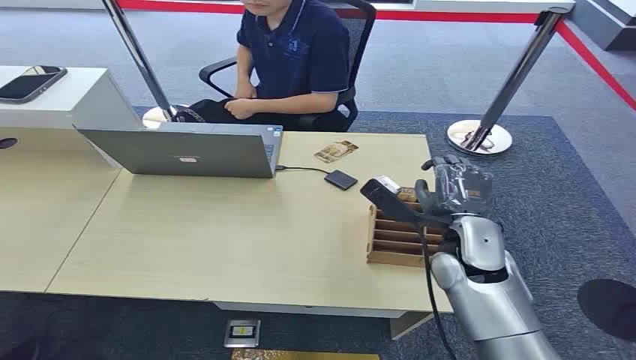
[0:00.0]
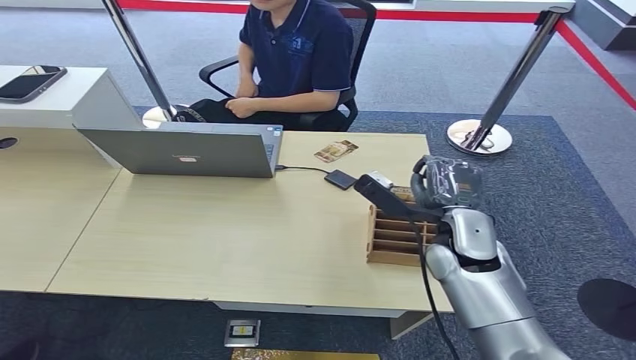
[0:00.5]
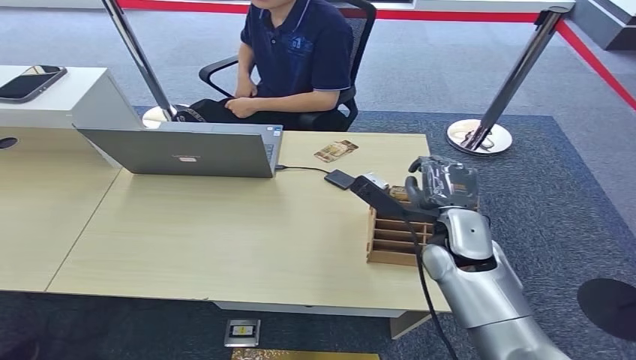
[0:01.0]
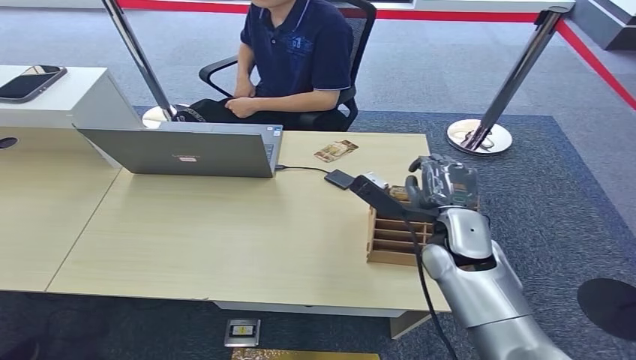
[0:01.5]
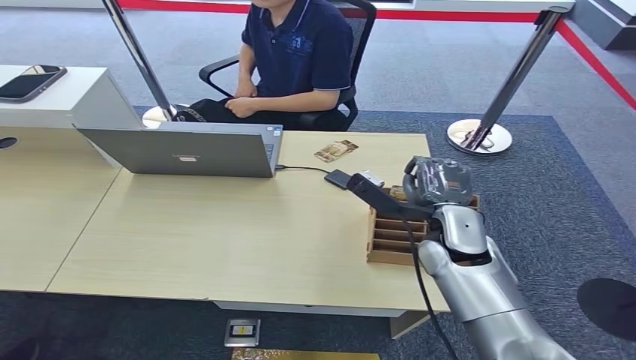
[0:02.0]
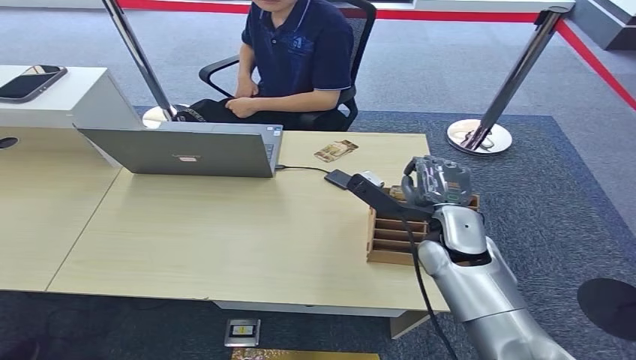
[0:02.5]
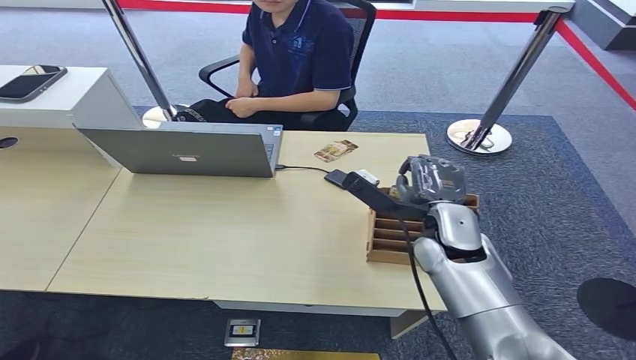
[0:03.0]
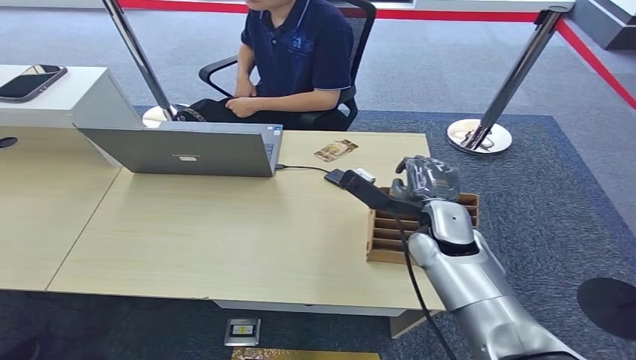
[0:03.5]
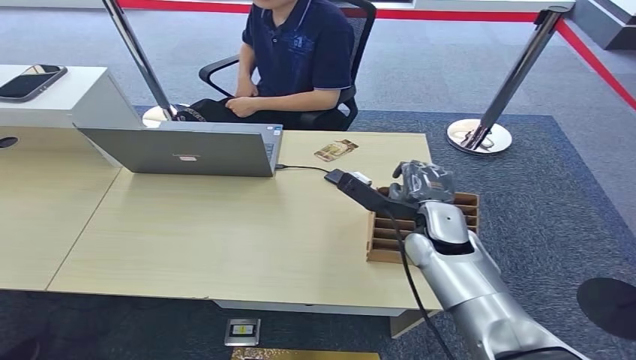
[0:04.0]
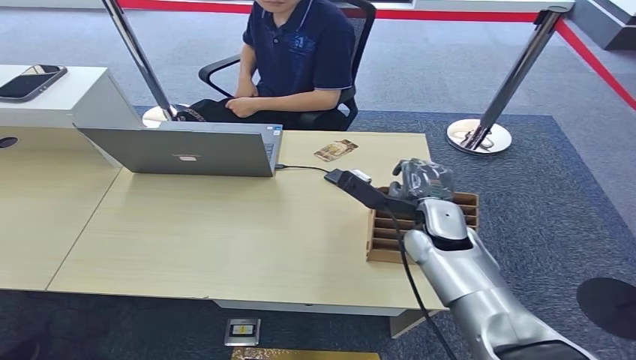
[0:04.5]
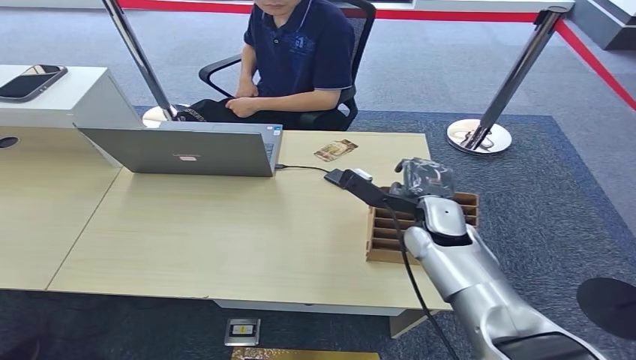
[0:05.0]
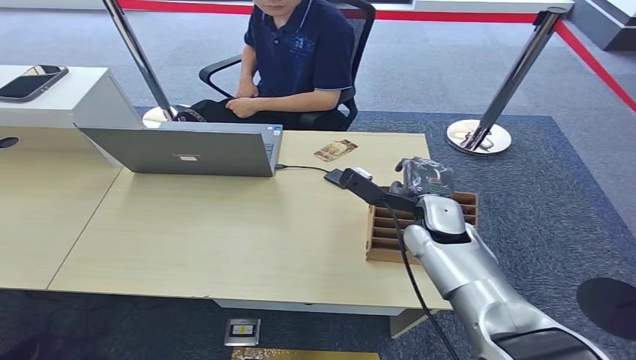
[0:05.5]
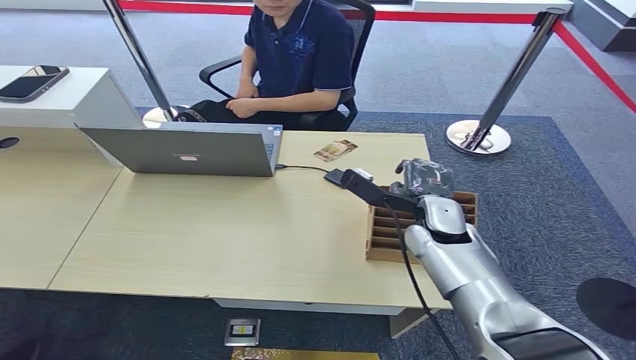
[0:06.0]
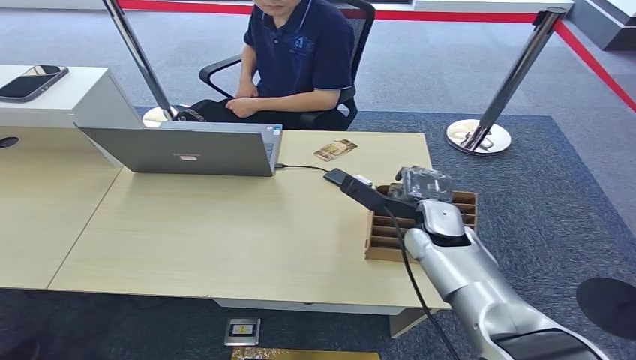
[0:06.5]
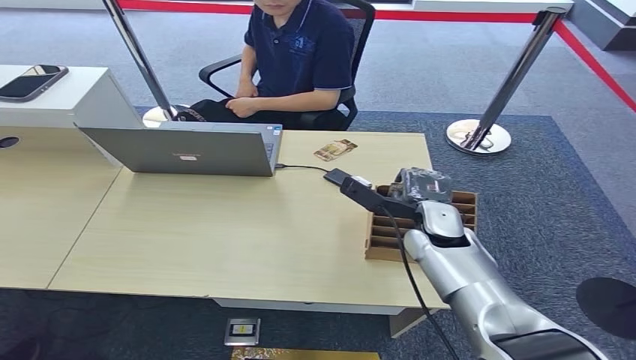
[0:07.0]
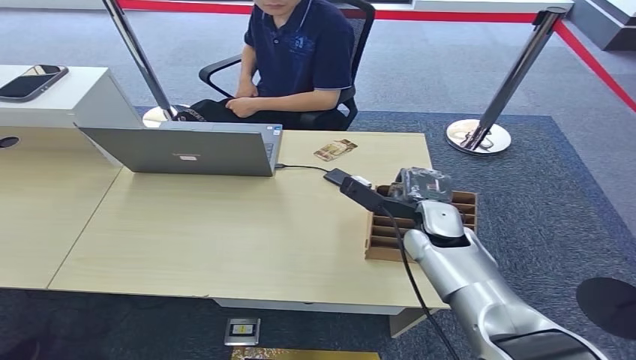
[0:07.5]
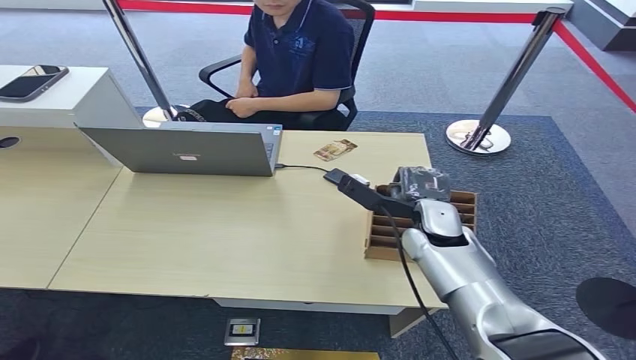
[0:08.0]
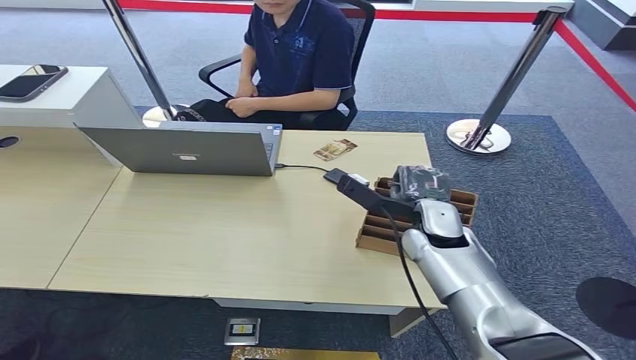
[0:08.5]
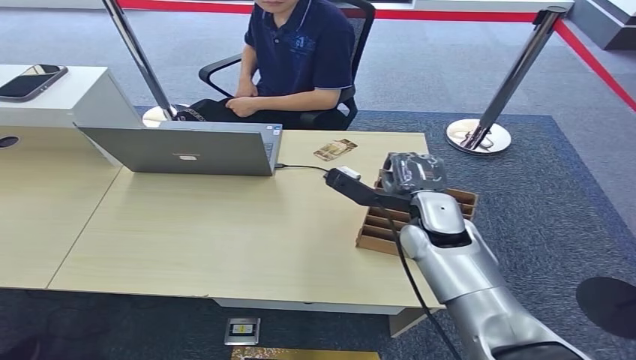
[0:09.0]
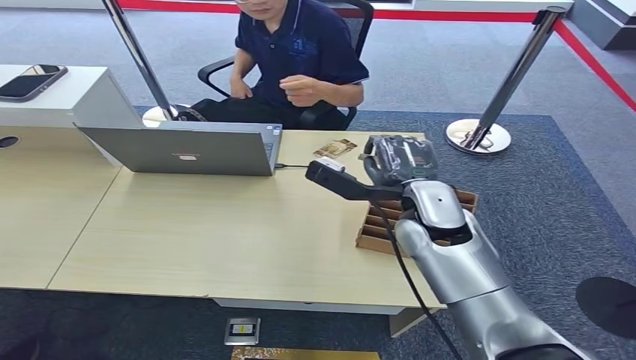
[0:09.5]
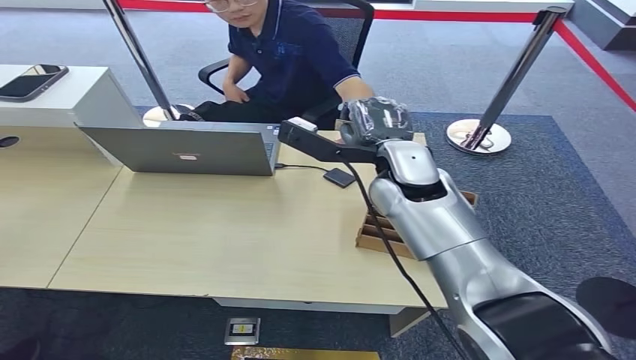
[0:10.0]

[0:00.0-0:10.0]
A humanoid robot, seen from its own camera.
Step, 0:00.0 to 0:09.5: Pick up the key card from the card box.
0:02.0 to 0:06.0: There are only small adjustments of the hands.
0:06.0 to 0:08.0: Both hands stay about where they are.
0:08.0 to 0:10.0: The right hand goes roughly 15 cm upward and to the left.

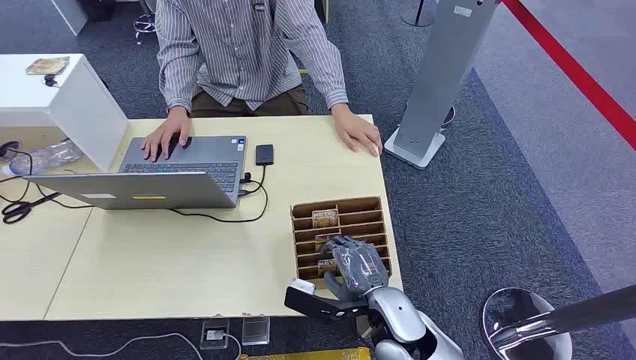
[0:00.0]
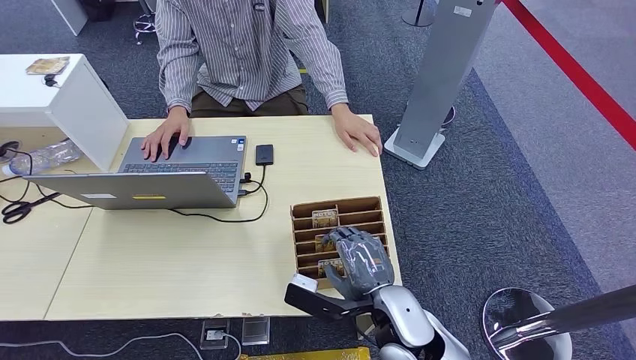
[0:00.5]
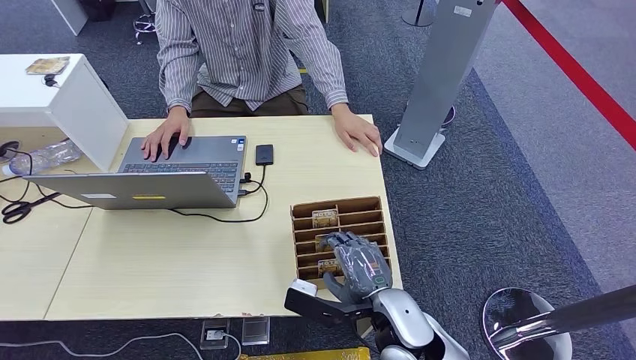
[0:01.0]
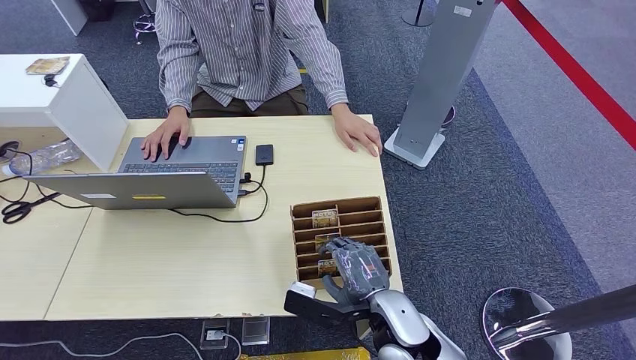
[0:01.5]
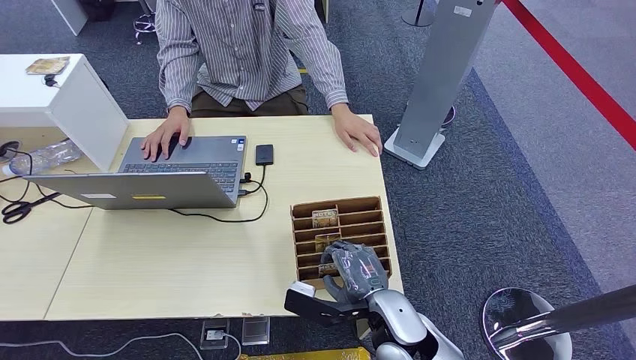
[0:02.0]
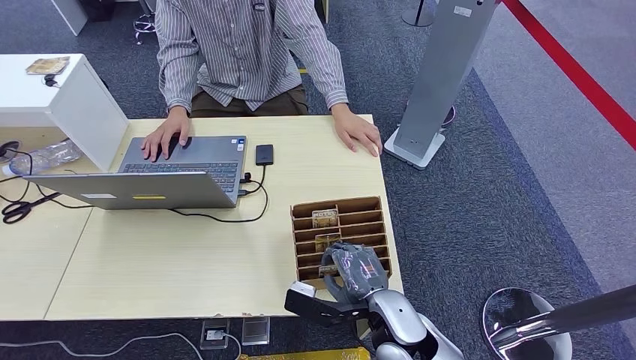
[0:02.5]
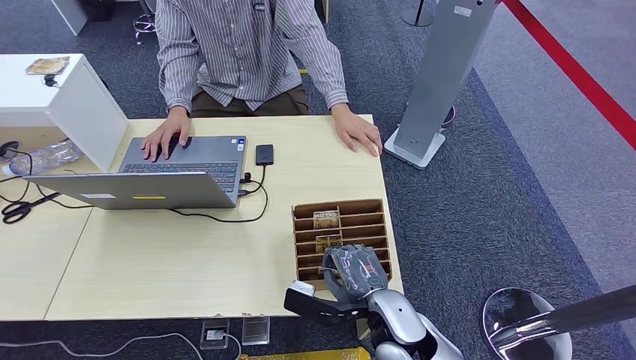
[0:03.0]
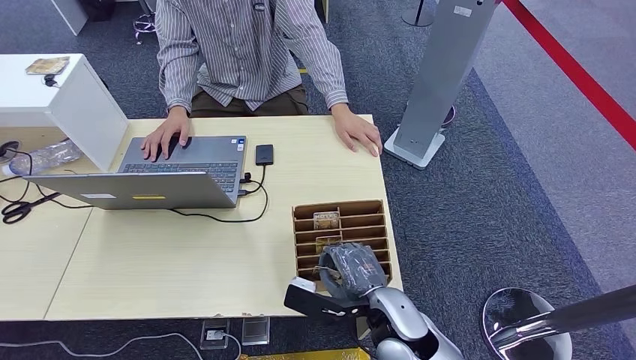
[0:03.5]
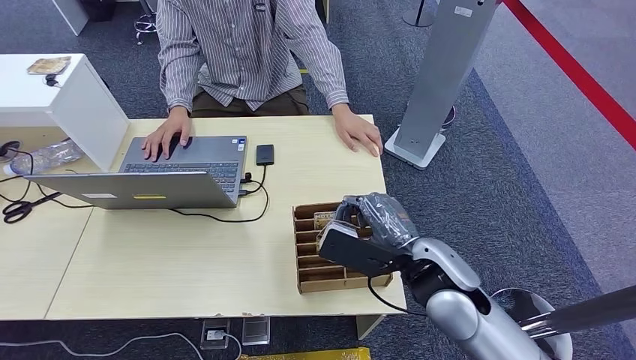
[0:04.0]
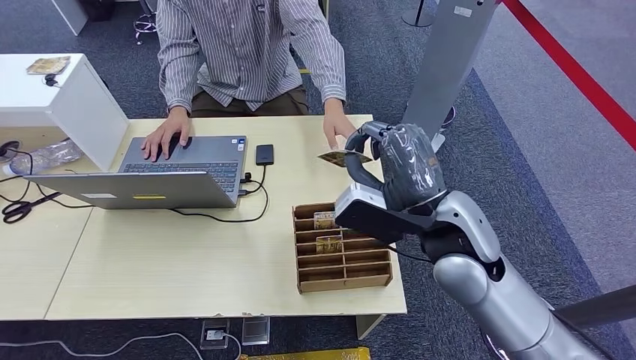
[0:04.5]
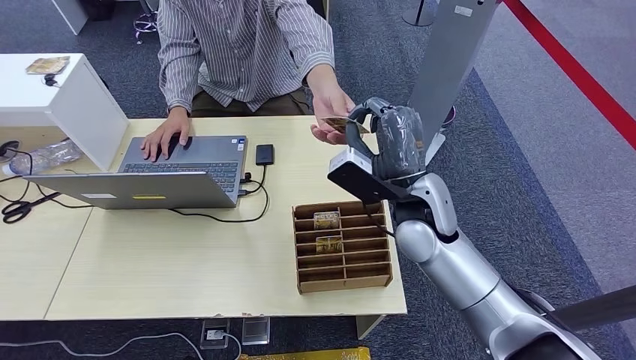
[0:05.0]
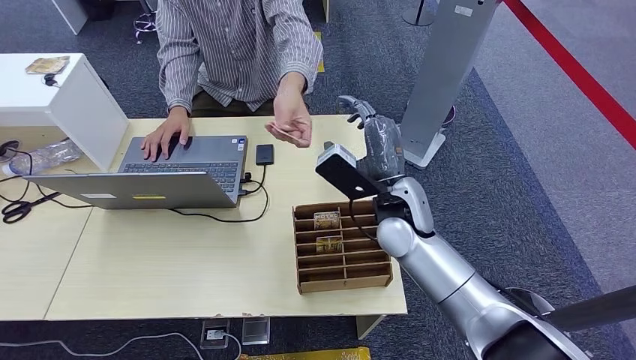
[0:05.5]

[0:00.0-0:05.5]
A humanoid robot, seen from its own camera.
Step, 0:00.0 to 0:04.0: Pick up the key card from the card box.
Step, 0:05.0 to 0:05.5: Hand the key card to the target.
0:02.0 to 0:03.5: The hands stay close to where they were, moving slightly.
0:03.5 to 0:05.5: The right hand heads forward and upward, covering approximately 20 cm.

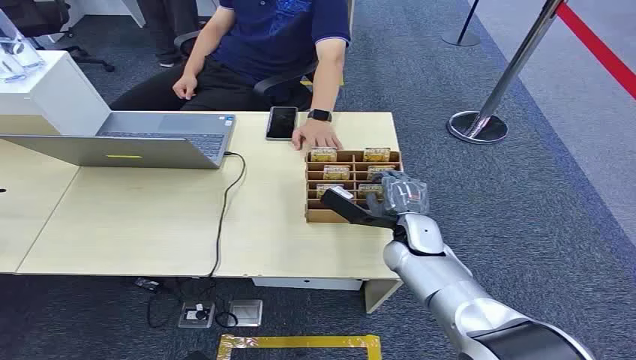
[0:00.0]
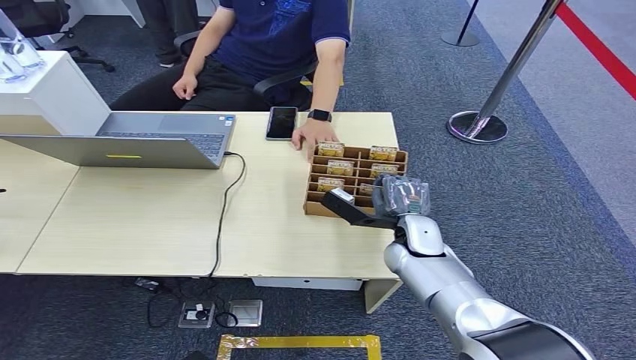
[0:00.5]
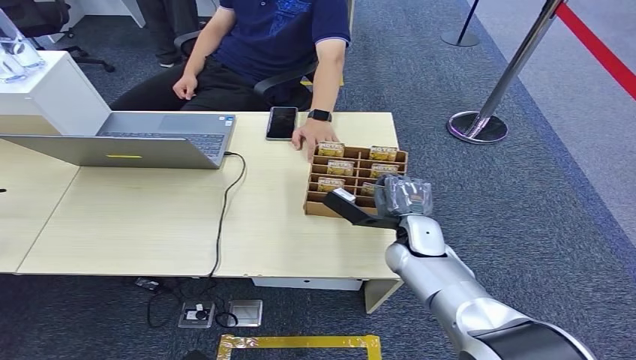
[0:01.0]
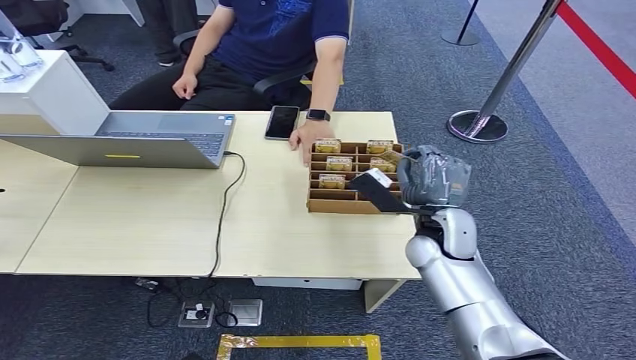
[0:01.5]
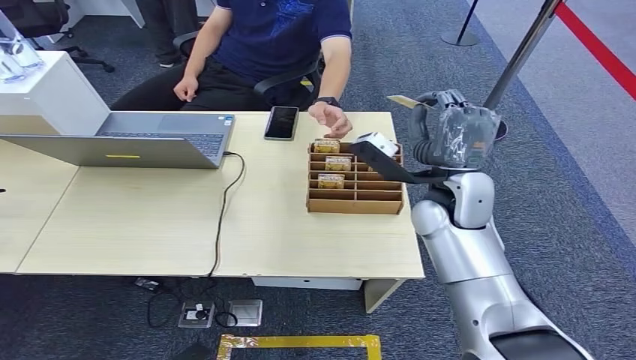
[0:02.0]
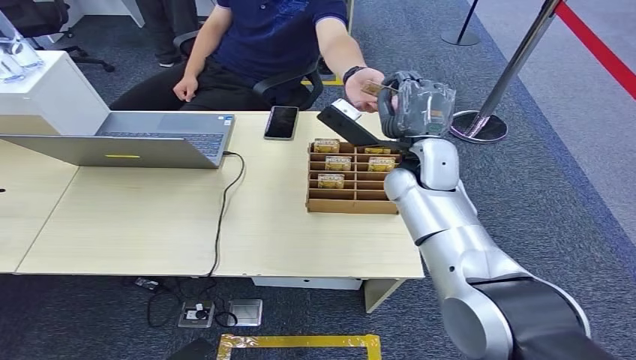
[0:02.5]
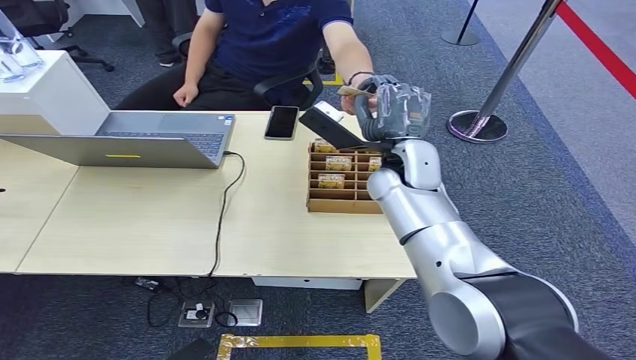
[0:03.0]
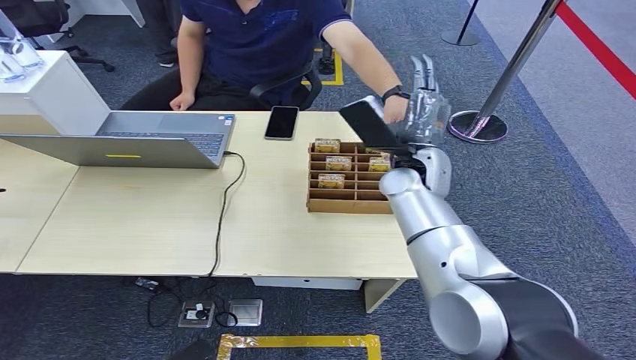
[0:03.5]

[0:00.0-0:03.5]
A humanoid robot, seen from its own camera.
Step, 0:00.0 to 0:02.0: Pick up the key card from the card box.
Step, 0:02.5 to 0:03.5: Hand the key card to the target.
0:02.0 to 0:03.5: The right hand shifts about 5 cm forward.
